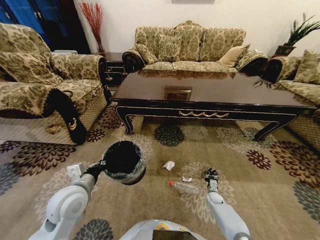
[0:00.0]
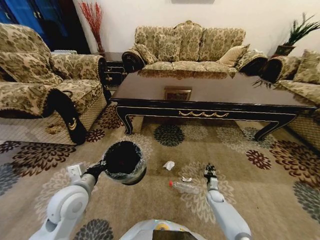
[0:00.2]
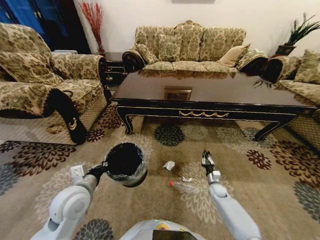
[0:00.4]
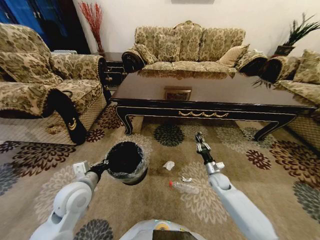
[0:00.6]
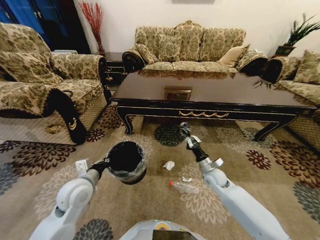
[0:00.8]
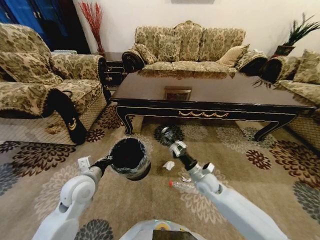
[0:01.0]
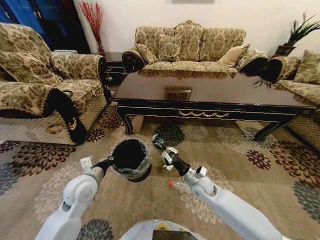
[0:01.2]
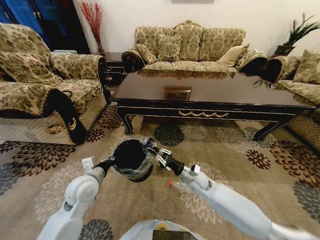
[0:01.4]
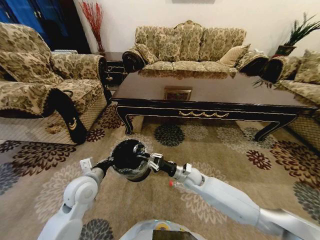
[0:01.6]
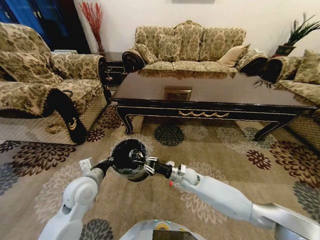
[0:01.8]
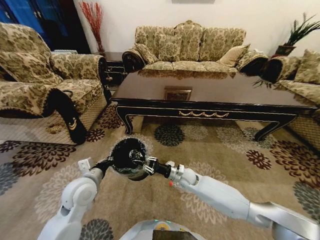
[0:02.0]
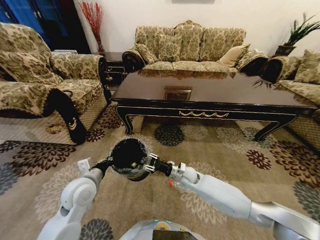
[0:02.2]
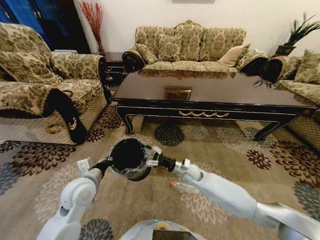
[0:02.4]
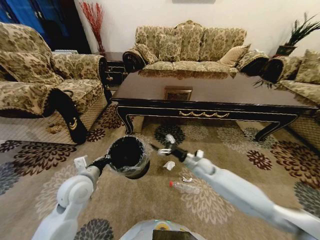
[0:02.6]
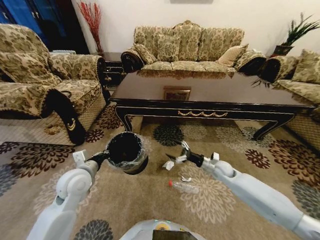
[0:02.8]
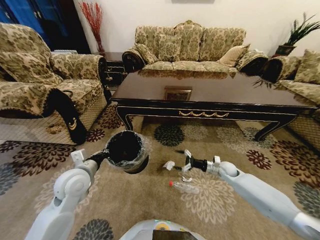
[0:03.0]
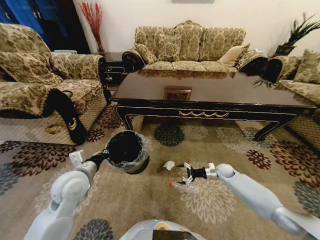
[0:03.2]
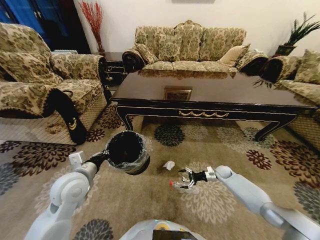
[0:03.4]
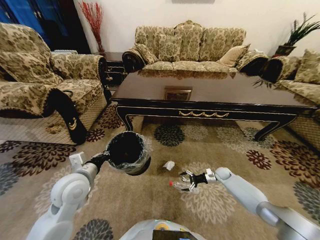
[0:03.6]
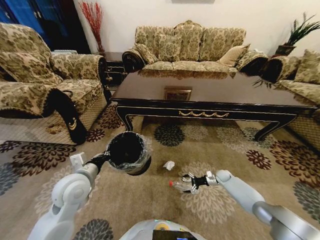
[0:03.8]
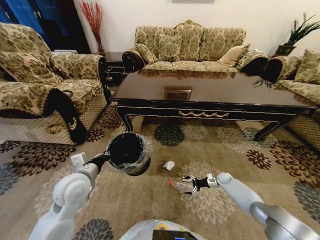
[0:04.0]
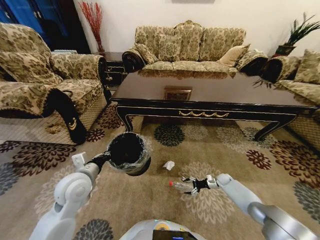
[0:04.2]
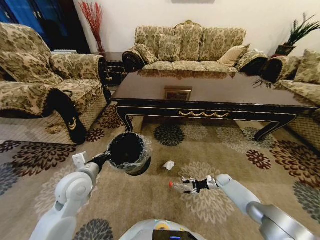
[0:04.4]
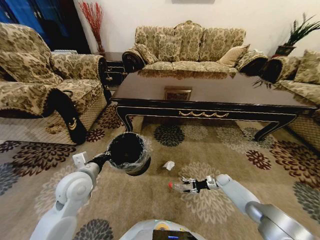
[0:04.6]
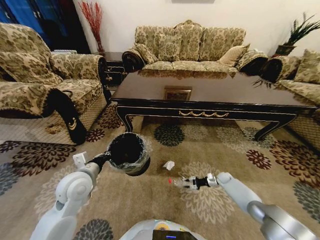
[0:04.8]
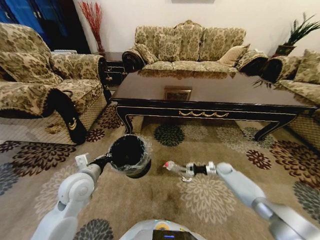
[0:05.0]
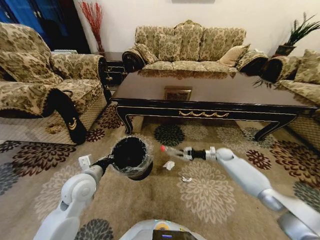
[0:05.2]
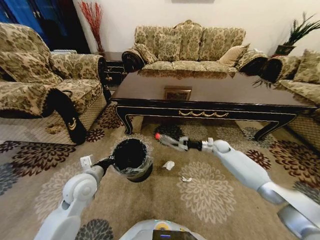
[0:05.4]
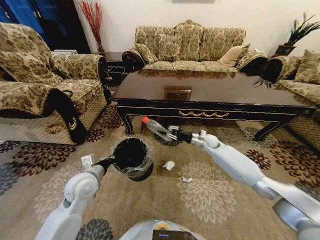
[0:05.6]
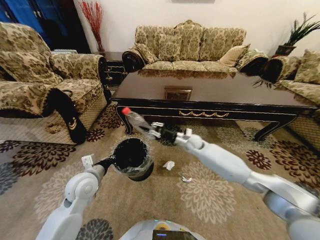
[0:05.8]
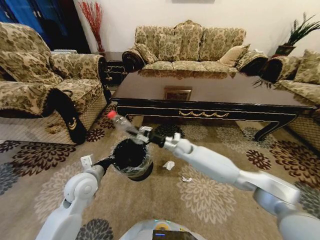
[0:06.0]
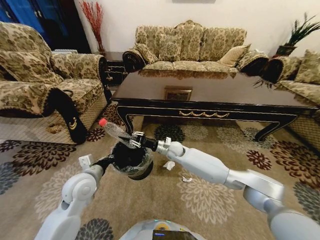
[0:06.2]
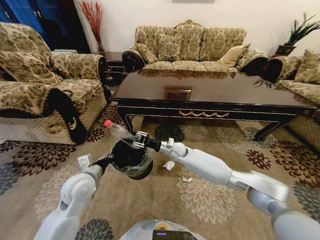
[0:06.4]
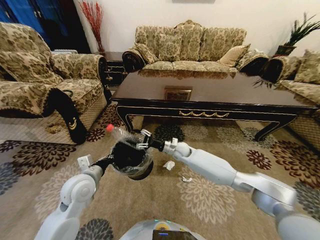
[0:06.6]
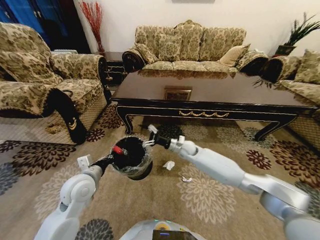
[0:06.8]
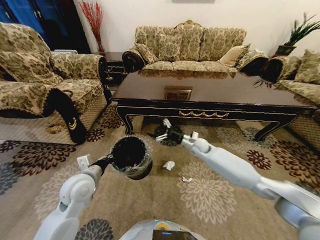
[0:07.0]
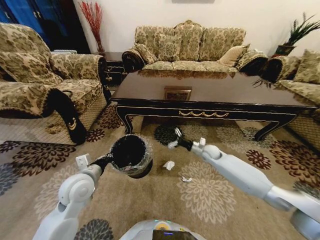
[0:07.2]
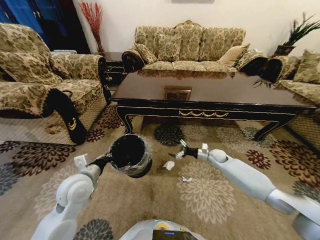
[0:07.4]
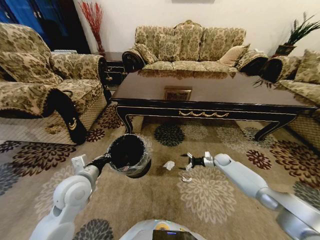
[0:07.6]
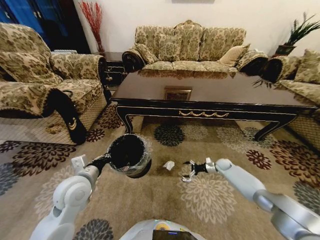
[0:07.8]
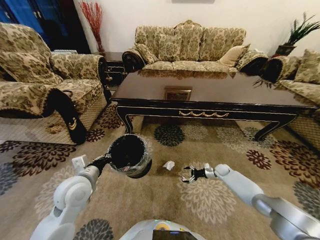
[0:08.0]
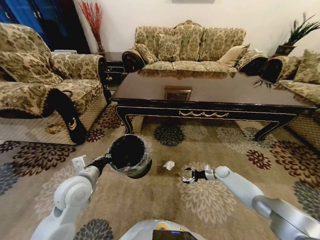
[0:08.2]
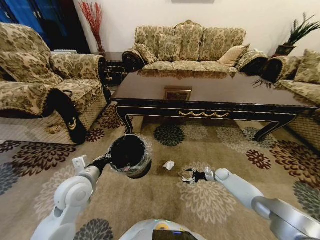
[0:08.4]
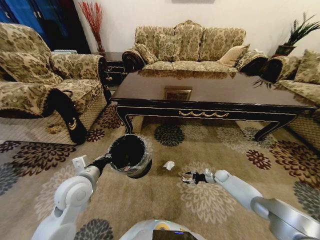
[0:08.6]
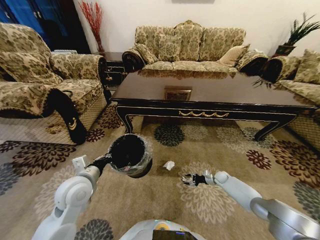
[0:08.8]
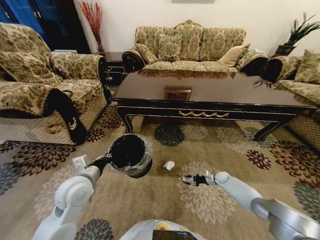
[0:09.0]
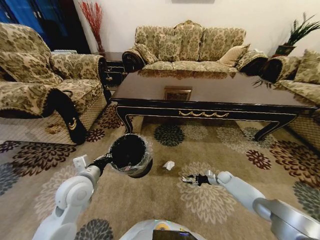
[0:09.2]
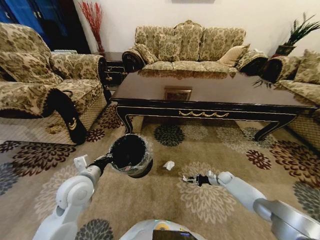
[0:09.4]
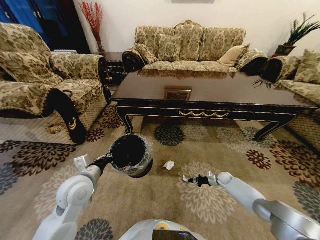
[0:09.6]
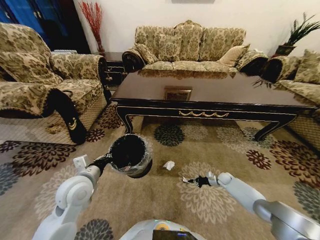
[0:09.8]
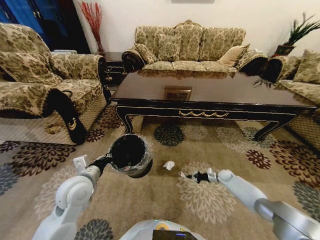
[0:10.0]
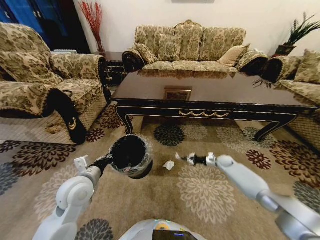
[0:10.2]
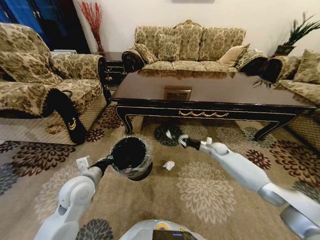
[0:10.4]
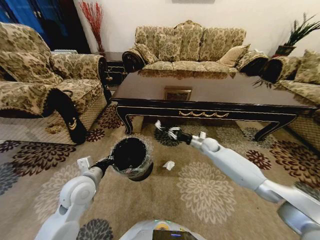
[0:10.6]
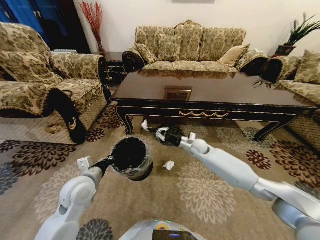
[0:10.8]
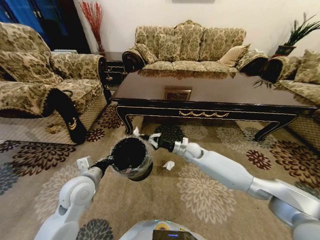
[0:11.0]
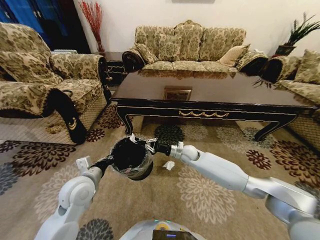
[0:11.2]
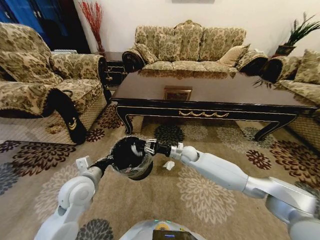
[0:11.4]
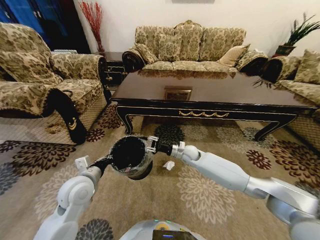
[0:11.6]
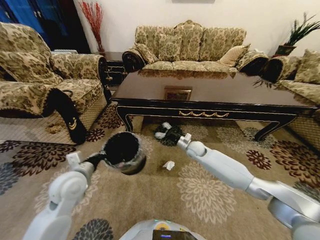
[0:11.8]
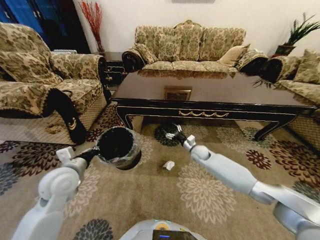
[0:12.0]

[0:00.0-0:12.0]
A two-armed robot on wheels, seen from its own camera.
Task of the whole recording: Move to the front of the table and pick up the trash from the floor, then place it into the trash bin.
0:00.0 to 0:01.6: The right gripper travels upward and to the left by roughly 30 cm.
0:01.6 to 0:03.0: The right gripper is displaced to the right by approximately 20 cm, and opens.
0:03.0 to 0:04.4: The right gripper heads downward and to the right, covering about 20 cm.
0:04.4 to 0:06.0: The right gripper shifts some 40 cm to the left and upward, and closes up.
0:06.0 to 0:07.6: The right gripper is displaced to the right and downward by about 30 cm, and opens.
0:07.6 to 0:09.0: The right gripper goes approximately 15 cm downward and backward, and closes its fingers.
0:09.0 to 0:10.4: The right gripper heads upward and forward, covering approximately 20 cm, and closes its fingers.
0:10.4 to 0:12.0: The left gripper moves some 5 cm. The right gripper heads to the left, covering approximately 15 cm, and opens up.

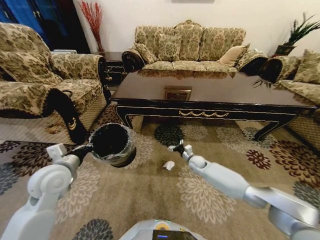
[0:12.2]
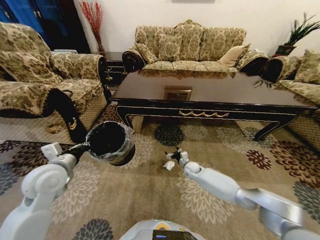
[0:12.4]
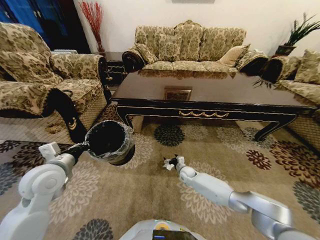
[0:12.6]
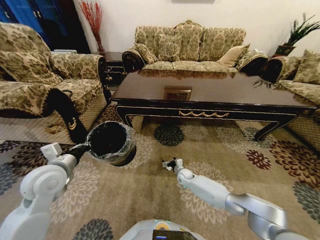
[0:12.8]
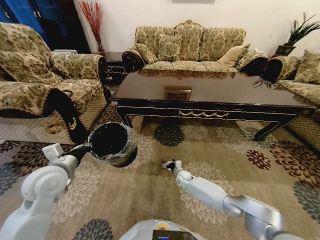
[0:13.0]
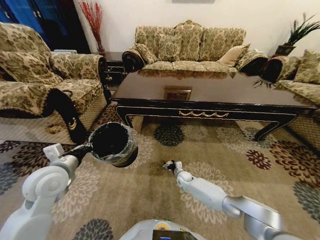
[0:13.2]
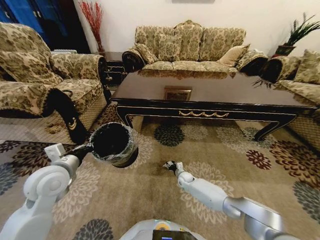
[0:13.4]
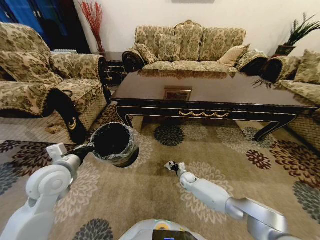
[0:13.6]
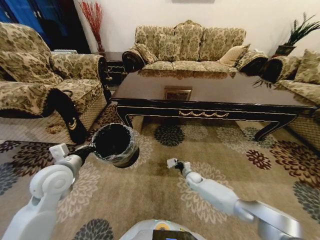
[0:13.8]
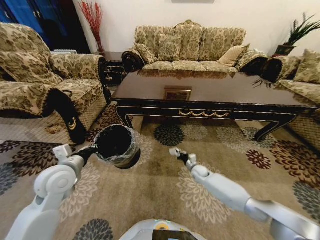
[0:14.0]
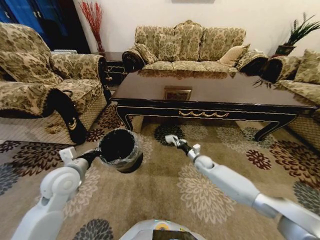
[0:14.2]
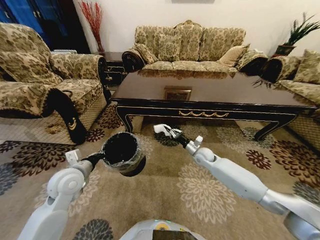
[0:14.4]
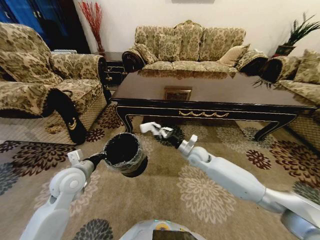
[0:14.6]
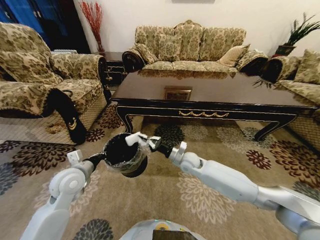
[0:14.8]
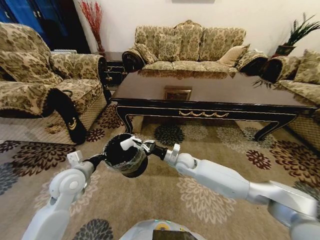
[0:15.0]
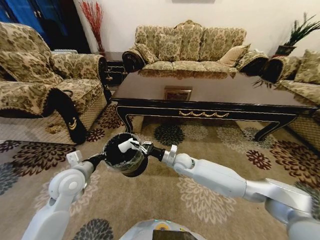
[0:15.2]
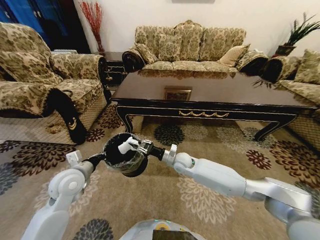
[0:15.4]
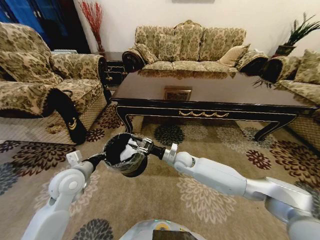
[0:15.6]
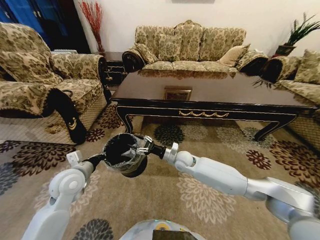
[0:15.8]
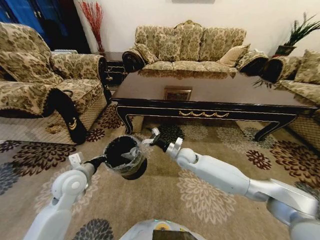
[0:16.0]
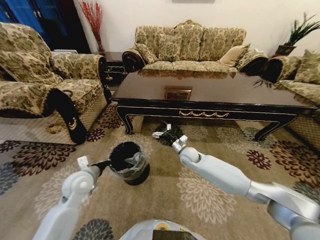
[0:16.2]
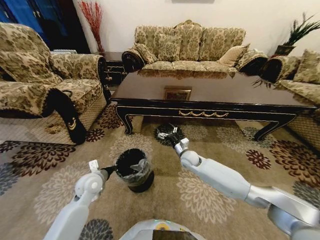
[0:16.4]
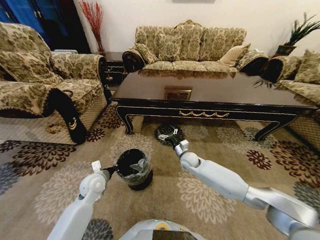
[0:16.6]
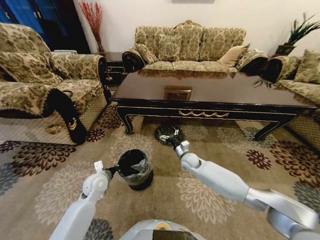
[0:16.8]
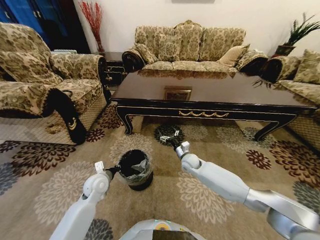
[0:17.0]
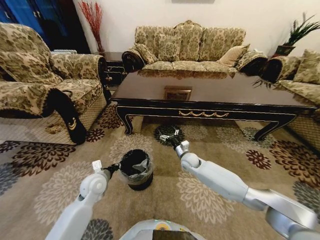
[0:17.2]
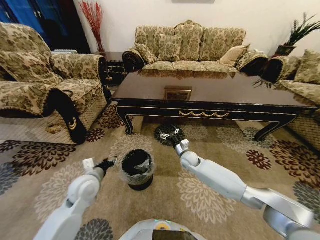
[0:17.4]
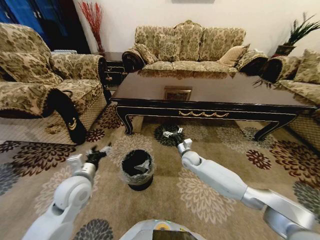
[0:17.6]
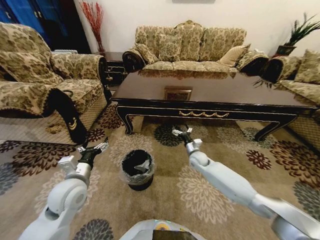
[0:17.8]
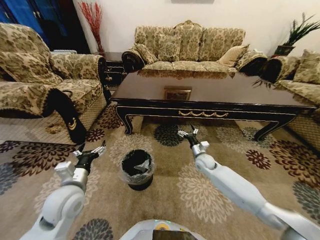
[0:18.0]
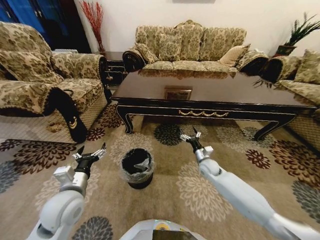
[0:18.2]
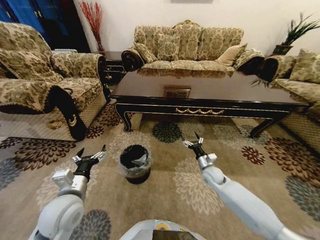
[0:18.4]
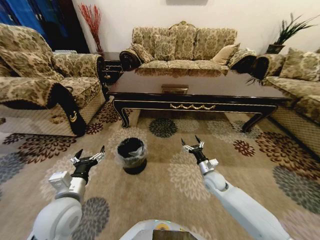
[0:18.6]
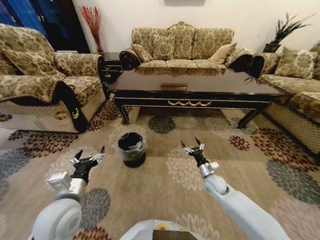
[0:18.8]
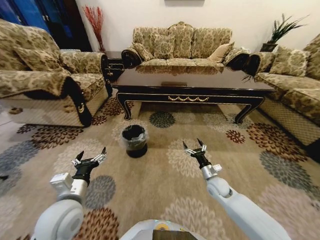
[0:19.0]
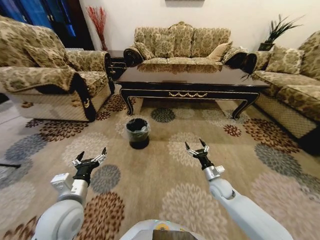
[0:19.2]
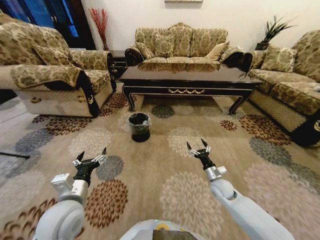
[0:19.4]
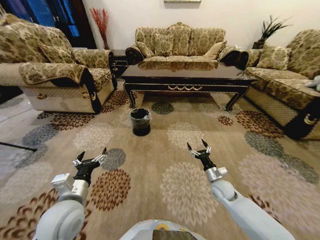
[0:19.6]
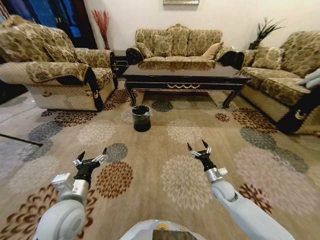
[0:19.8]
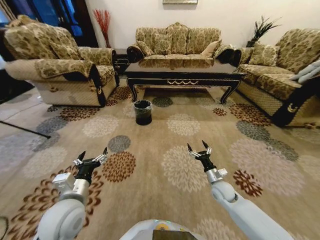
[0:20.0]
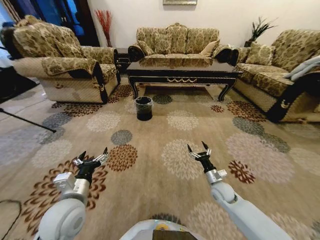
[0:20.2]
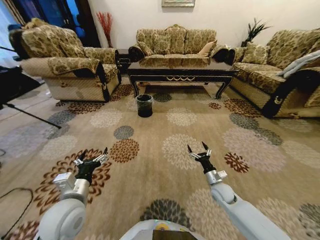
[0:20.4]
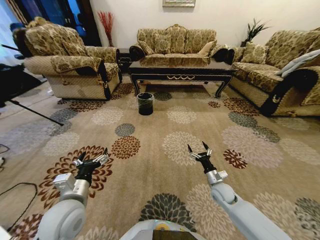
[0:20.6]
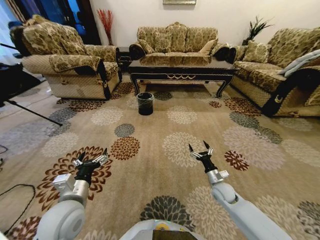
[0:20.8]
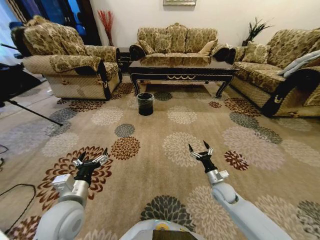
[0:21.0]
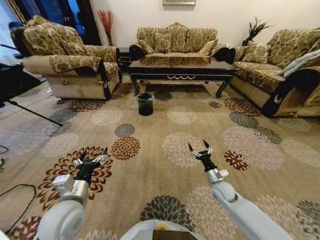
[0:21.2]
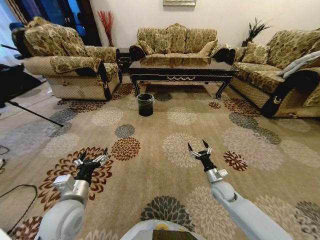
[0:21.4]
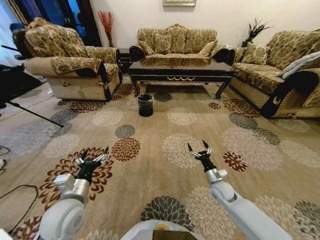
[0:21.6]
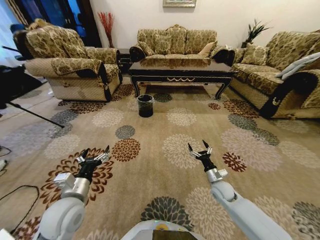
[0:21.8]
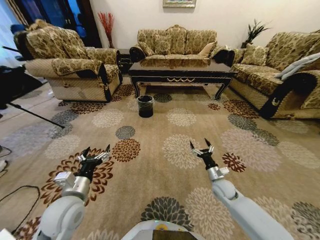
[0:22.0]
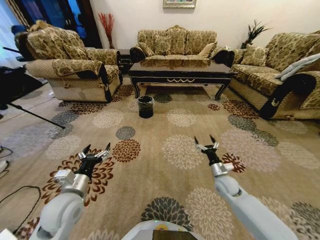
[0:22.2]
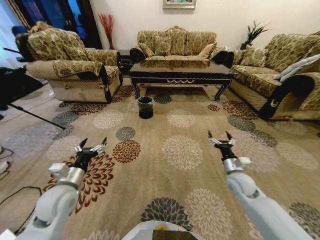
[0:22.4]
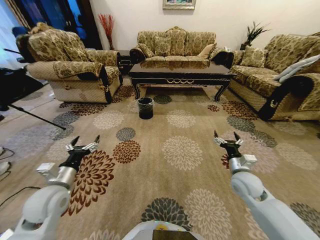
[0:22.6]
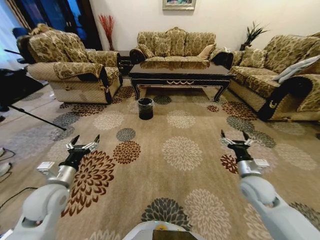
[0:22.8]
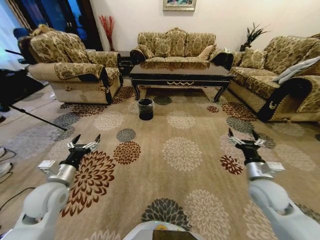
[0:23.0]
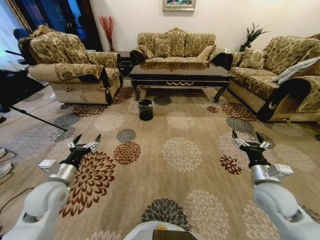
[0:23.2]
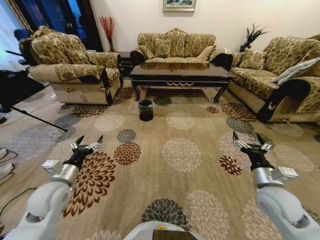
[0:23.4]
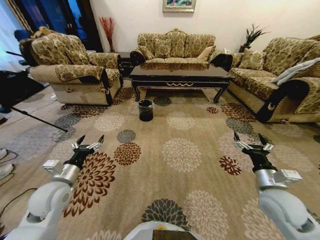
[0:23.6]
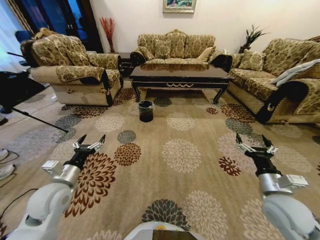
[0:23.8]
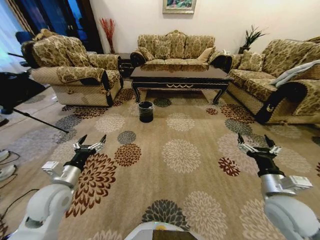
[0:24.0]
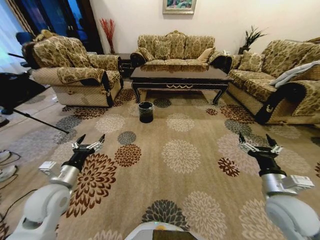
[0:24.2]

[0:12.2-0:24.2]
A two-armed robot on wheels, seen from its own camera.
Task of the whole recording: Move to the front of the table and pick up the trash from the floor, then place it into the trash bin.
0:12.2 to 0:13.8: The right gripper is displaced downward and backward by approximately 15 cm, and closes its fingers.
0:13.8 to 0:15.2: The right gripper moves upward and to the left, approximately 25 cm.
0:15.2 to 0:16.6: The right gripper changes place by some 5 cm, and opens up. Meanwhile the left gripper is displaced downward by some 10 cm.
0:16.6 to 0:18.2: The left gripper is displaced backward and upward by some 15 cm, and opens up, while the right gripper is displaced to the right by about 10 cm.
0:18.2 to 0:19.8: The right gripper is displaced backward by about 10 cm.
0:21.2 to 0:22.6: The right gripper is displaced upward by roughly 15 cm, while the left gripper travels to the left by roughly 5 cm.
0:22.6 to 0:24.2: The right gripper shifts some 10 cm backward and upward.
